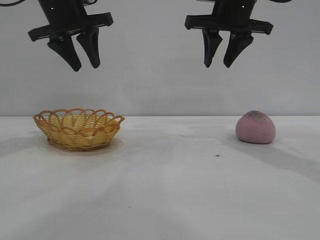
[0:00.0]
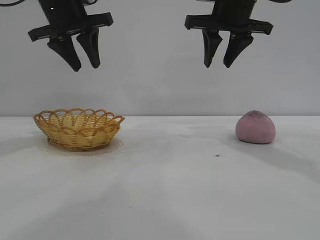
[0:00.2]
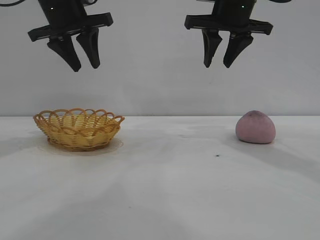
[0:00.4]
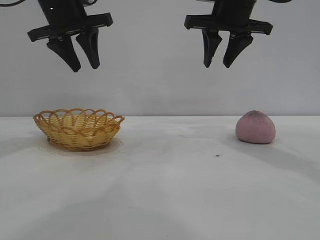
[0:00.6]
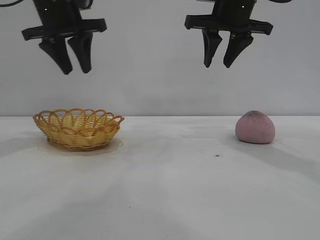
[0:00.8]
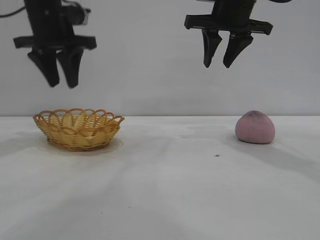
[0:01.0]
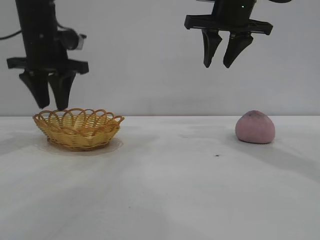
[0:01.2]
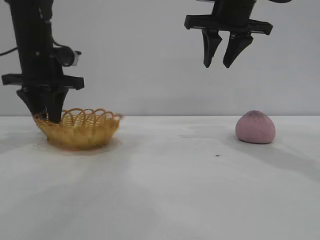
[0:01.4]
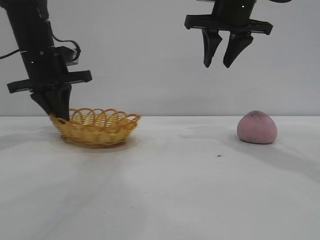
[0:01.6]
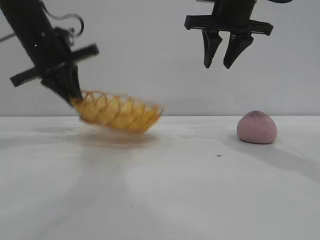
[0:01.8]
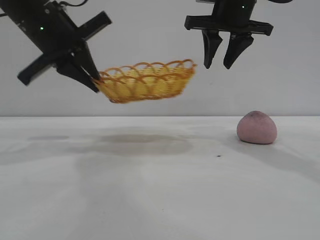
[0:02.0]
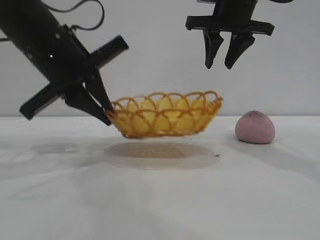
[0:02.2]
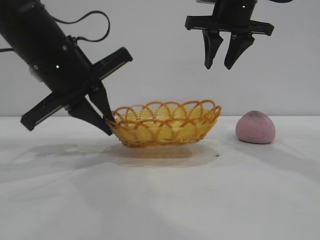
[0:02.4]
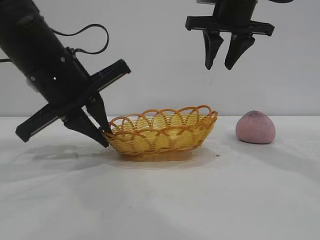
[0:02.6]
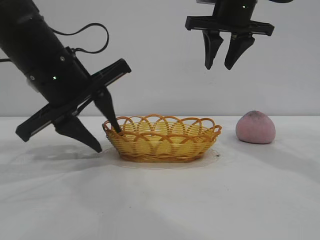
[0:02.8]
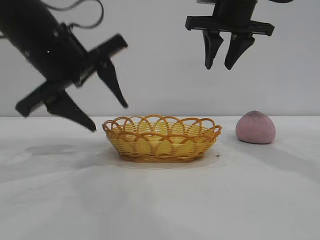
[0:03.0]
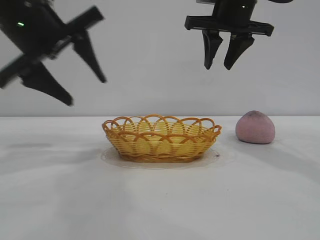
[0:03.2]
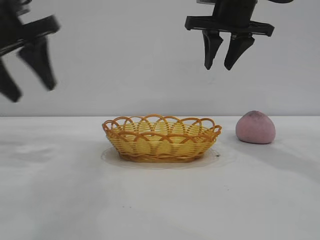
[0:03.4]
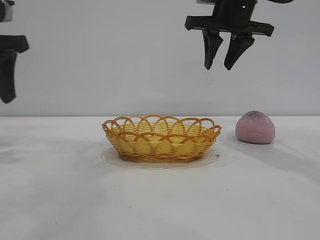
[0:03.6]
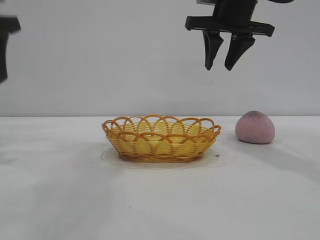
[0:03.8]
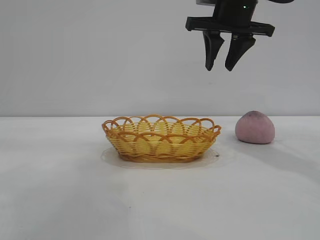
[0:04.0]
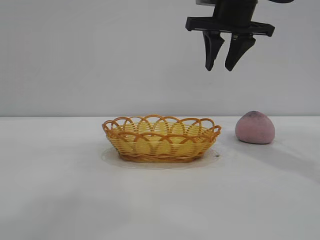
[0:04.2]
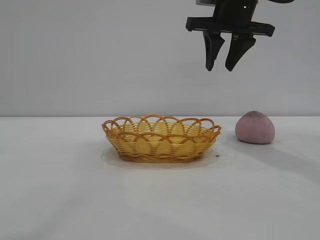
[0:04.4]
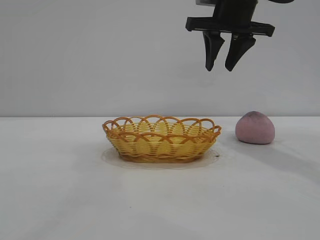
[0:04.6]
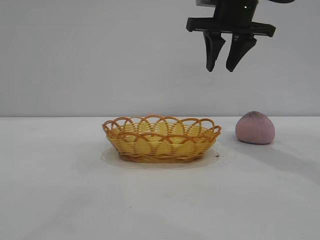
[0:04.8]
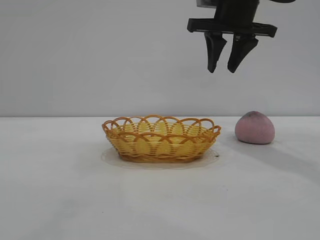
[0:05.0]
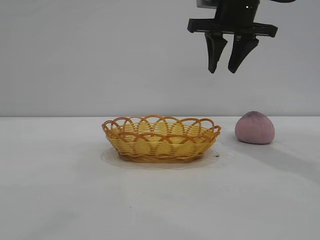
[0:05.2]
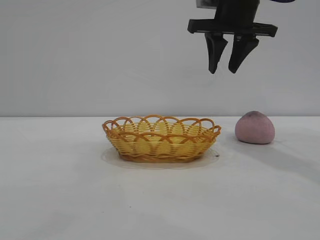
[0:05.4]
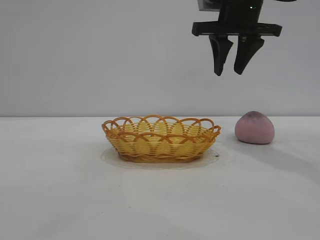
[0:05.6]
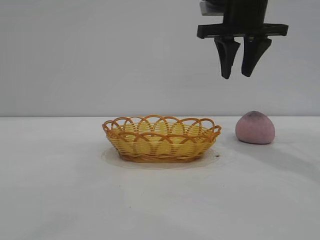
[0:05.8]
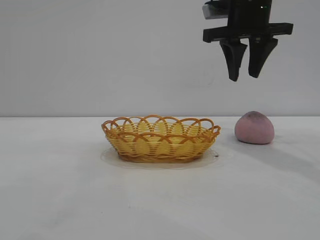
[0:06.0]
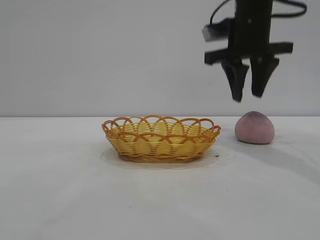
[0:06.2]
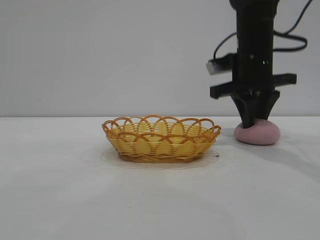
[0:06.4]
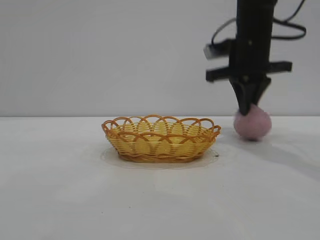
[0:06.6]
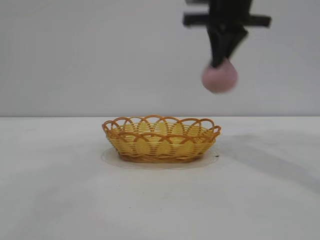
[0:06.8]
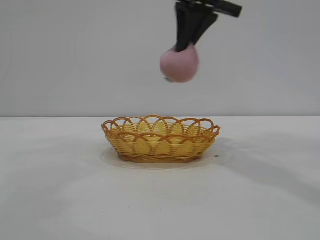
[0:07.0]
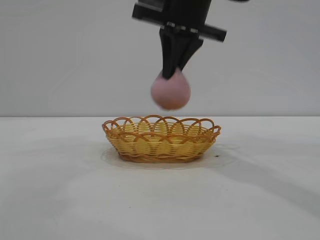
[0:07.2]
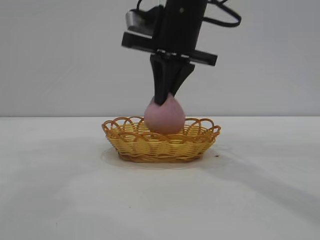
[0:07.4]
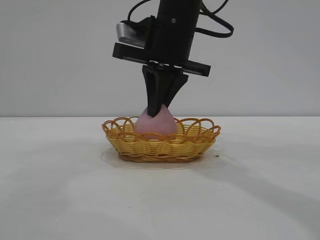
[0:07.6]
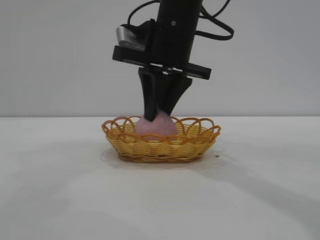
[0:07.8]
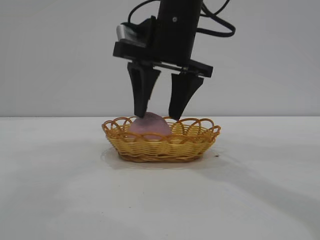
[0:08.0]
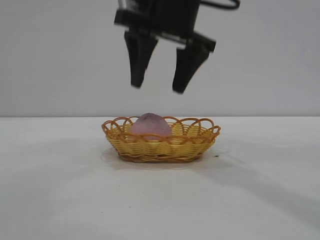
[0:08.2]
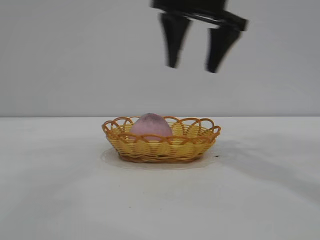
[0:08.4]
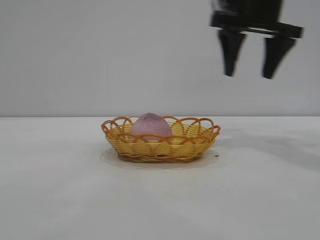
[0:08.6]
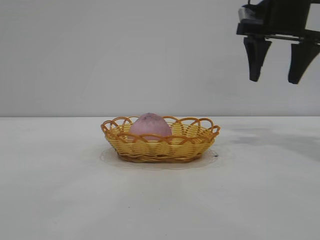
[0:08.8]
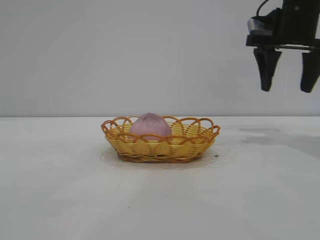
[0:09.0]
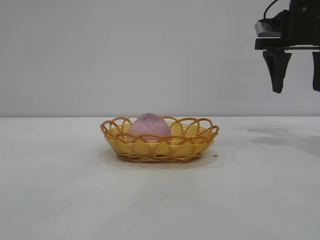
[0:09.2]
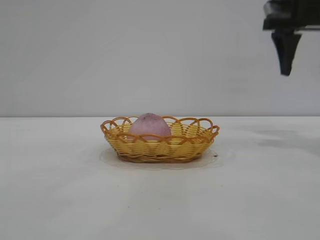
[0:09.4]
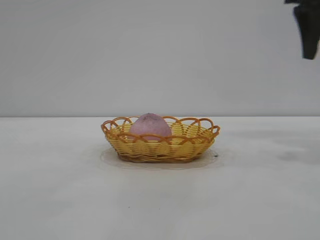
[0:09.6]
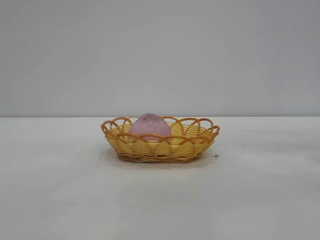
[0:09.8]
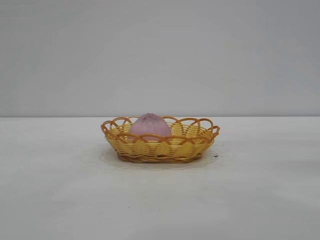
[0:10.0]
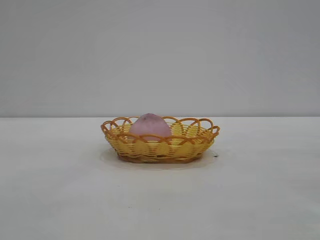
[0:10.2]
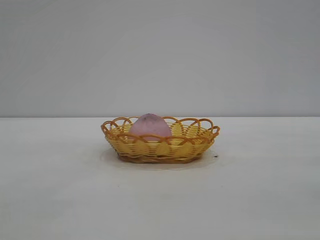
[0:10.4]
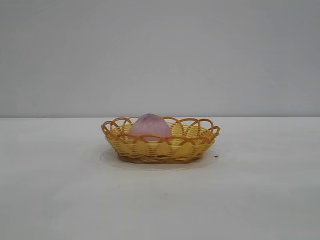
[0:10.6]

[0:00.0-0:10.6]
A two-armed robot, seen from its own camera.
Task of the whole recording: pick up the peach and put it into the basket.
Step, 0:00.0 to 0:03.2: Move the basket to the center of view.
Step, 0:03.4 to 0:06.6: Pick up the peach.
Step, 0:06.8 to 0:08.2: place the peach into the basket.

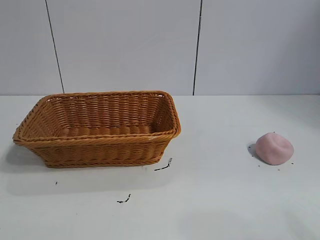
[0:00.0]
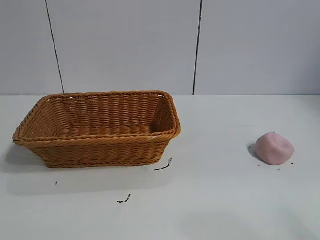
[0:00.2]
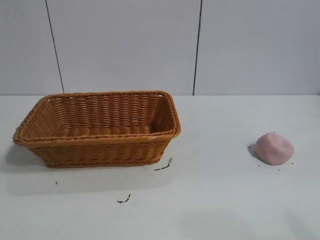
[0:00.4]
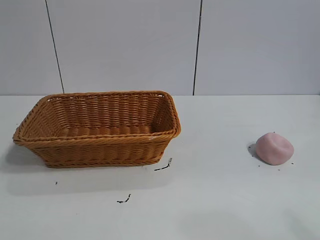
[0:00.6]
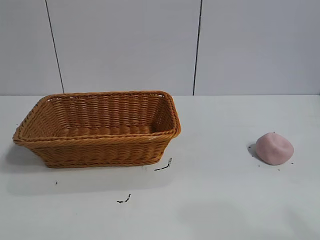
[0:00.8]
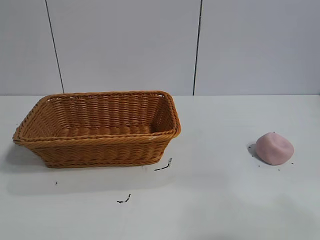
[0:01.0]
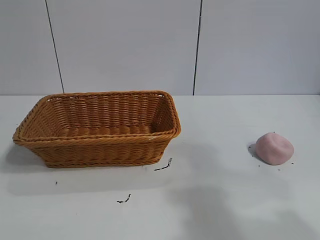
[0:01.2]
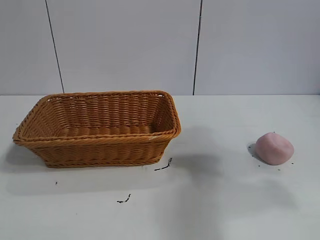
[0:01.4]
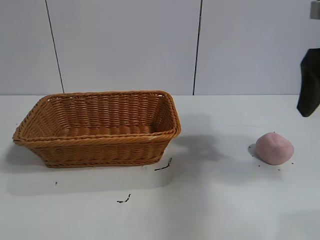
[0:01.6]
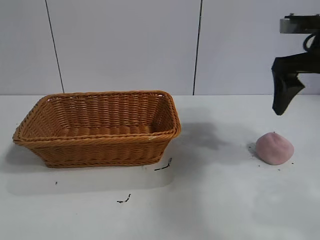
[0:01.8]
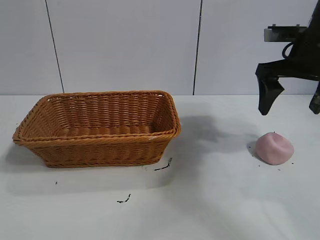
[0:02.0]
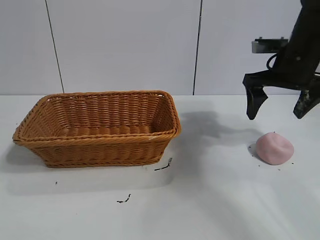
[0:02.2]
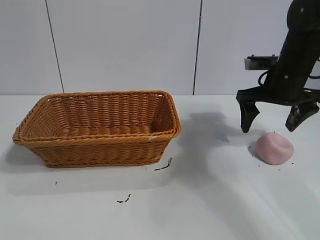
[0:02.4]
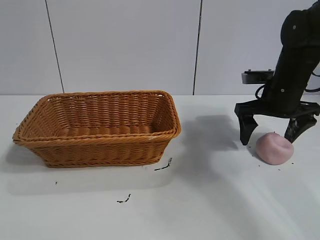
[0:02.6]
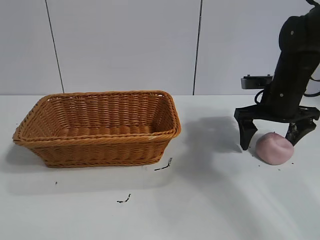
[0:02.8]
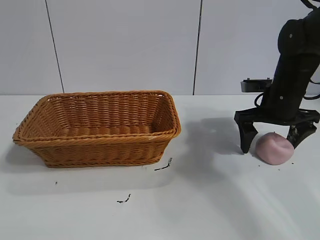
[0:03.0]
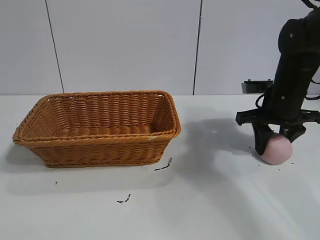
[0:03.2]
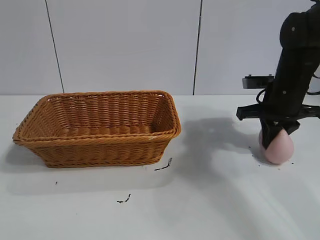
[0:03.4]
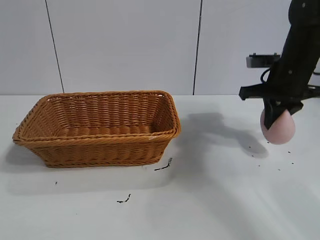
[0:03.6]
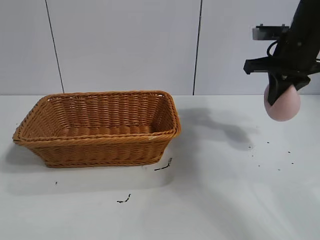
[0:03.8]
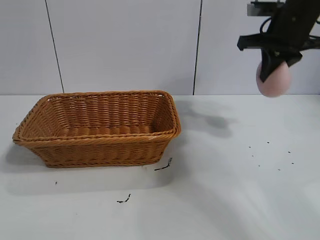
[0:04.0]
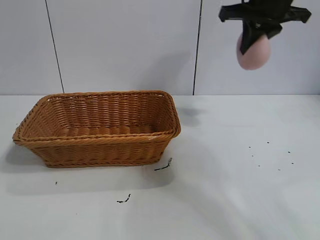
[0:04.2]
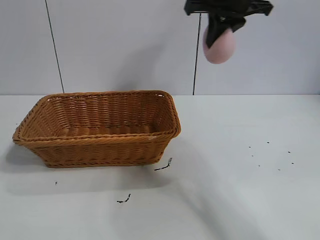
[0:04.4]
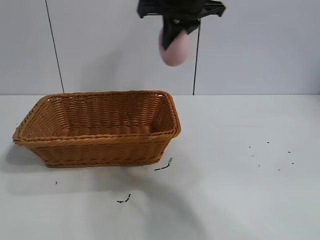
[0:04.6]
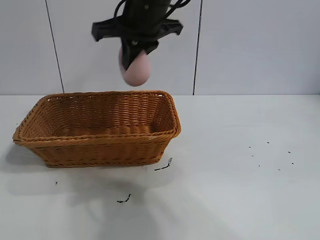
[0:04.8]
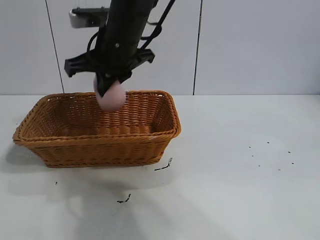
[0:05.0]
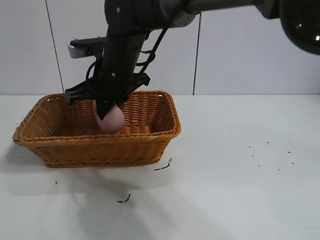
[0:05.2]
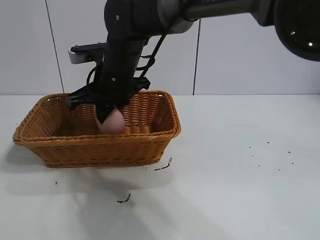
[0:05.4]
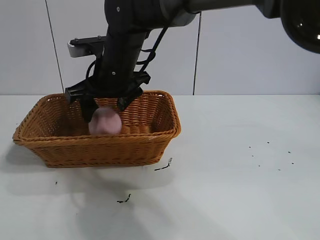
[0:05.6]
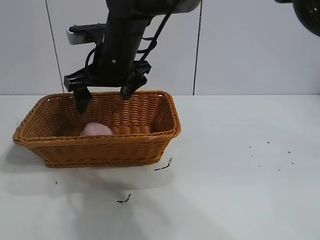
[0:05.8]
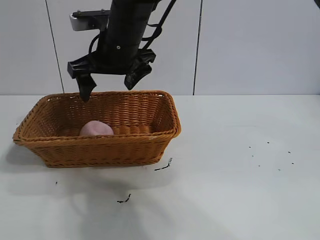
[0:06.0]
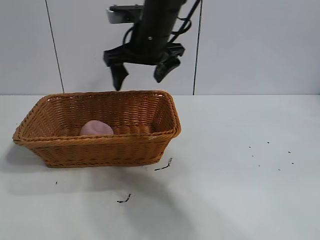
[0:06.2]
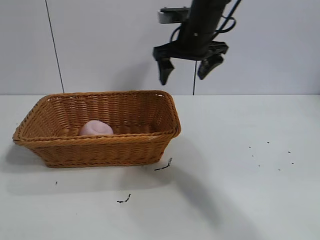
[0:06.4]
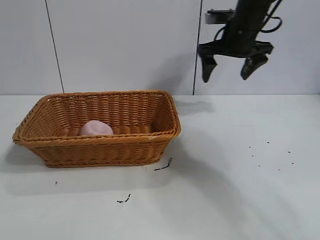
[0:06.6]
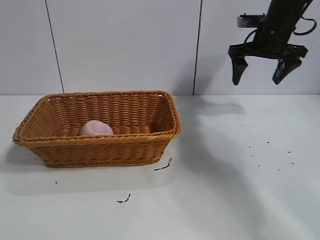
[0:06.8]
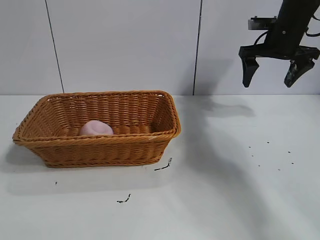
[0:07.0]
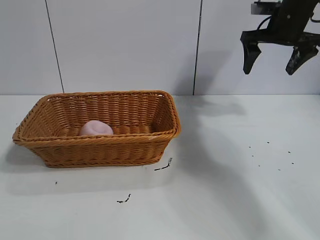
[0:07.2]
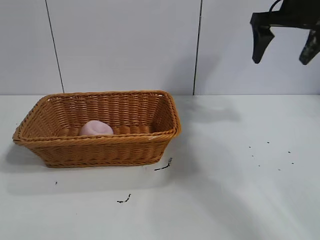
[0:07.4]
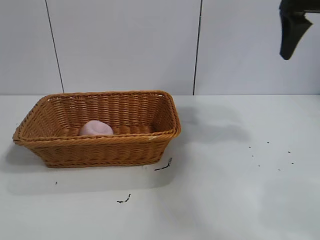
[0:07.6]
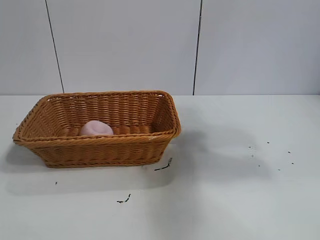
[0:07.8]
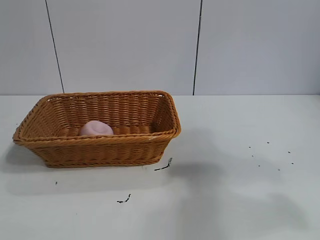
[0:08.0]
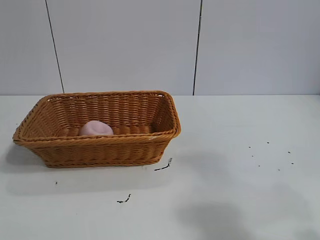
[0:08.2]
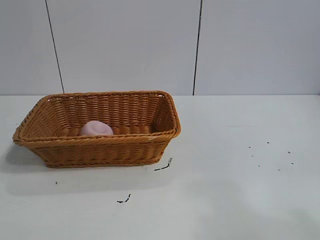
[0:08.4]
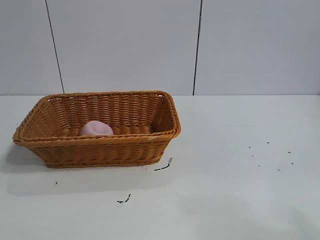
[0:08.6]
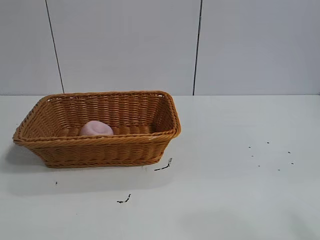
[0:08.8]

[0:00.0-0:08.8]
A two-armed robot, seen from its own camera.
Task of the whole recording: pick up the peach and put it into the basket.
Step, 0:00.8 to 0:03.2: Grasp the peach with right gripper.
Step, 0:03.4 to 0:05.6: Place the peach in the basket with right gripper.

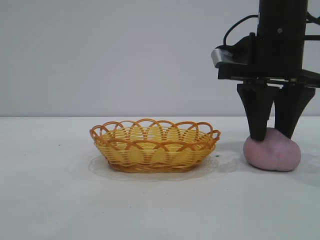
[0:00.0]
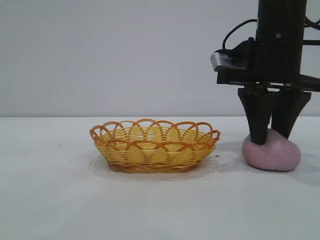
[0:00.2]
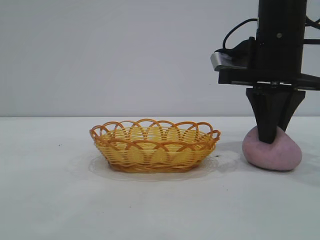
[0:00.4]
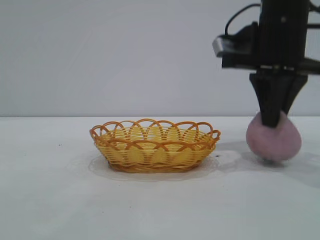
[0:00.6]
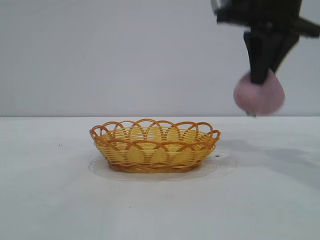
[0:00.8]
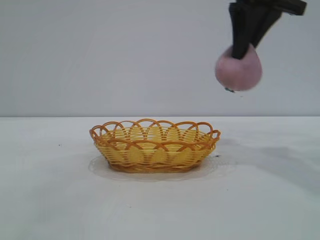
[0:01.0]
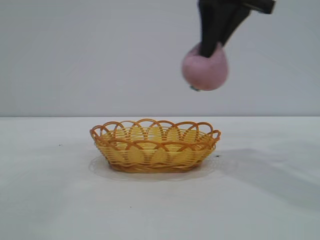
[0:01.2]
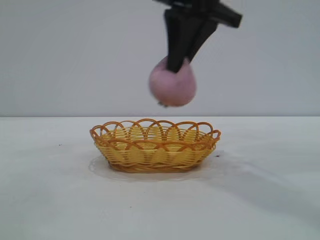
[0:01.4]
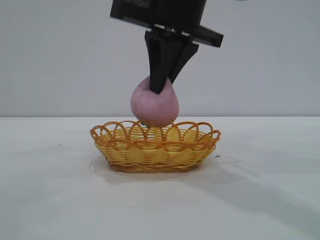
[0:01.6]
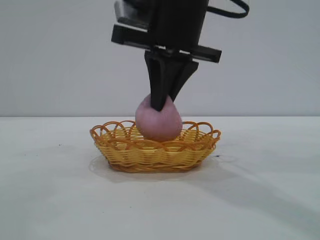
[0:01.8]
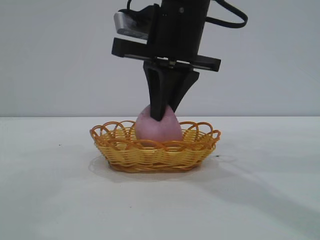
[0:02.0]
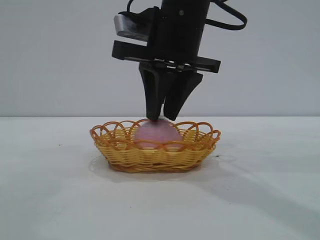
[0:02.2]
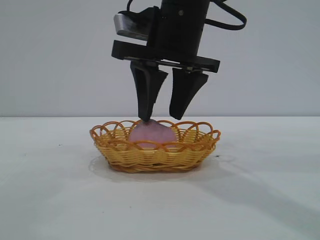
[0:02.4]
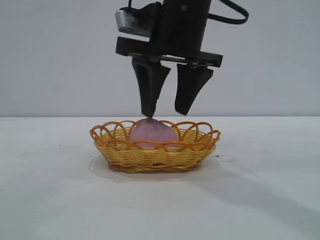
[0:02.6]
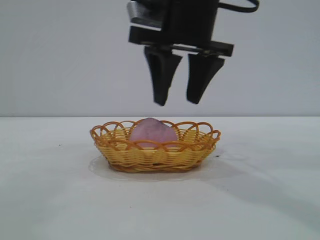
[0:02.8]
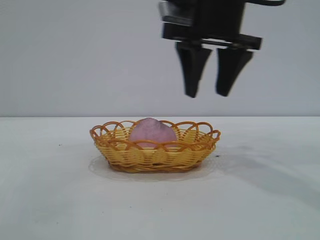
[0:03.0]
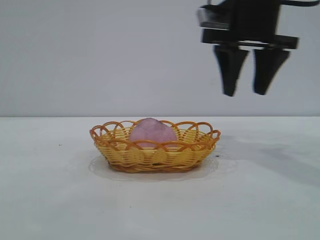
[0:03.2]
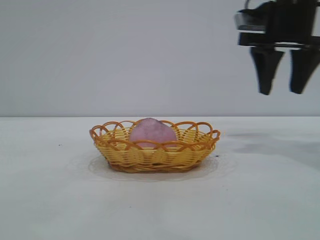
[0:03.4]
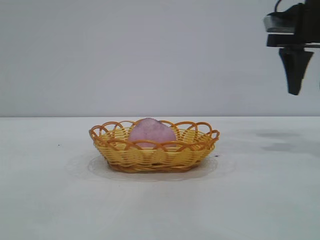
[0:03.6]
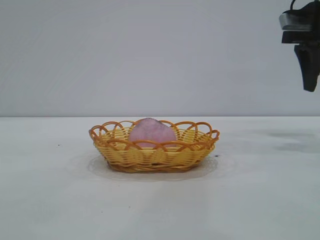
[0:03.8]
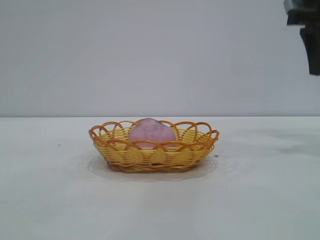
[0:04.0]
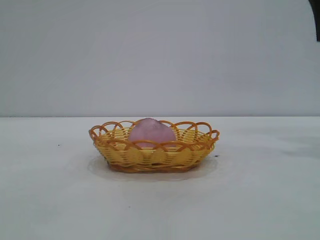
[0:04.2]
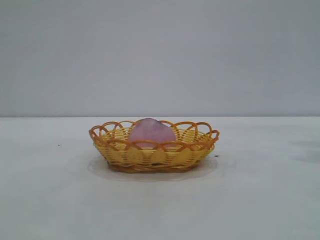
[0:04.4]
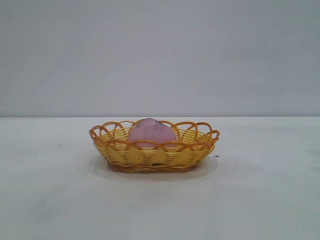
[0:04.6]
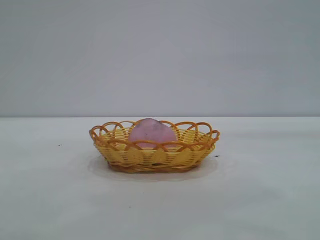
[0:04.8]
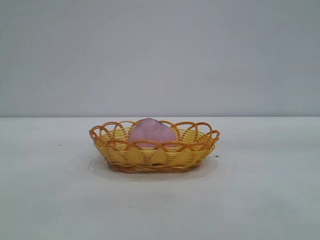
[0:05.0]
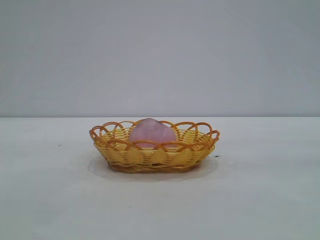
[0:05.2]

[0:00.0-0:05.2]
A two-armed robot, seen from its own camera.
Task of the whole recording: pick up the peach and put it into the basket.
Step, 0:01.0 to 0:03.0: place the peach into the basket.
